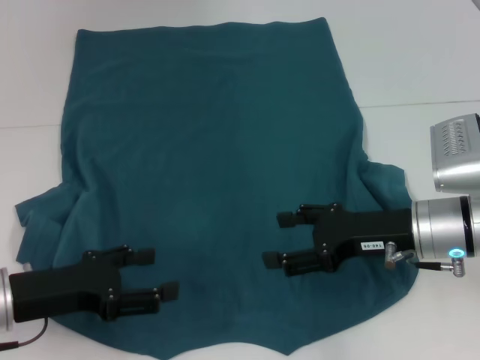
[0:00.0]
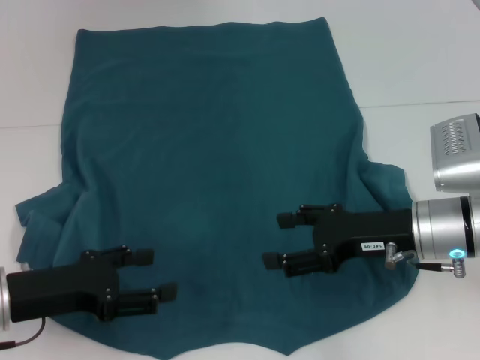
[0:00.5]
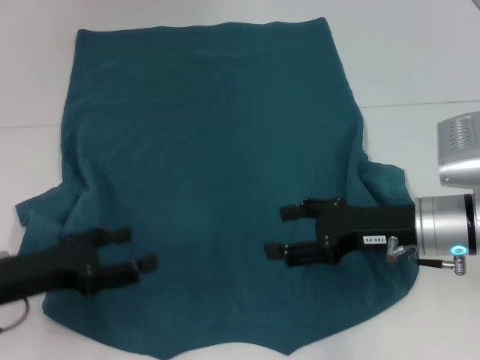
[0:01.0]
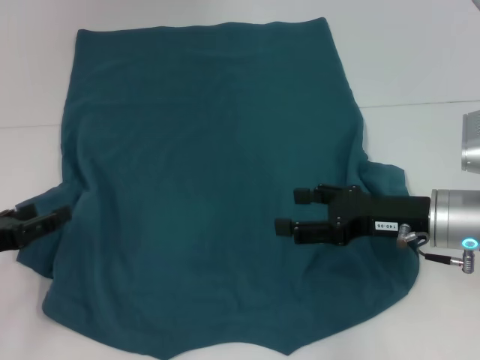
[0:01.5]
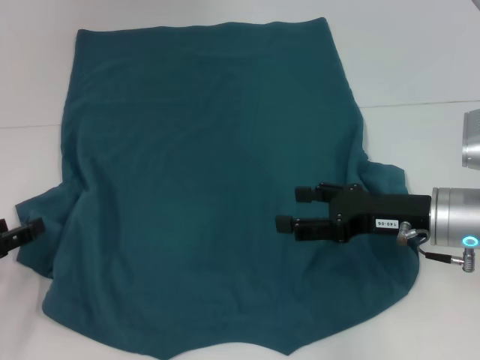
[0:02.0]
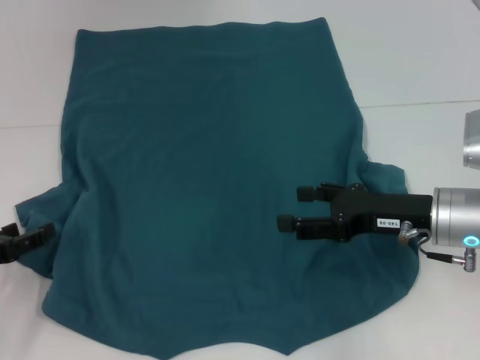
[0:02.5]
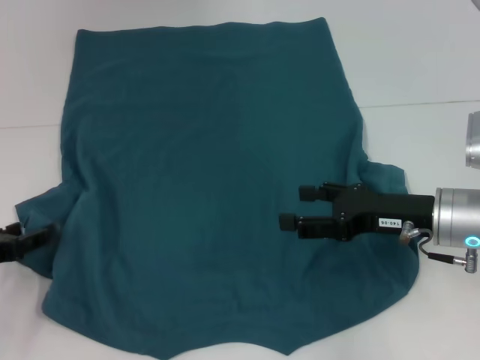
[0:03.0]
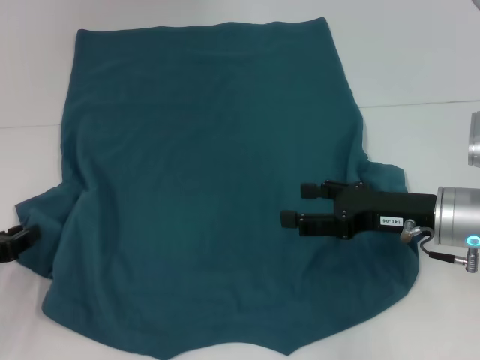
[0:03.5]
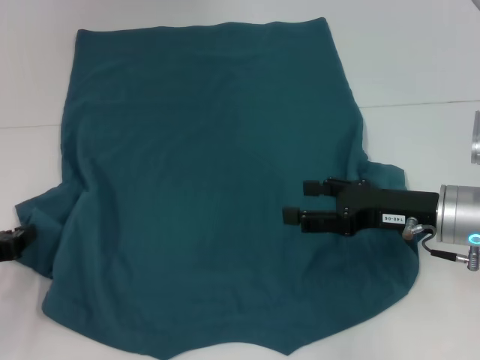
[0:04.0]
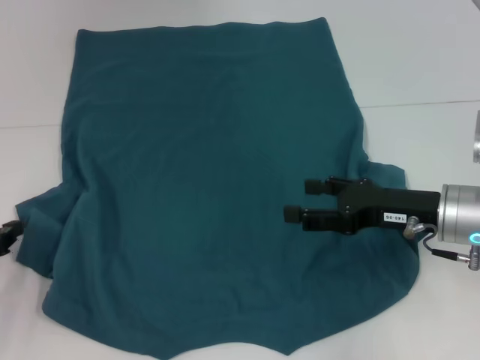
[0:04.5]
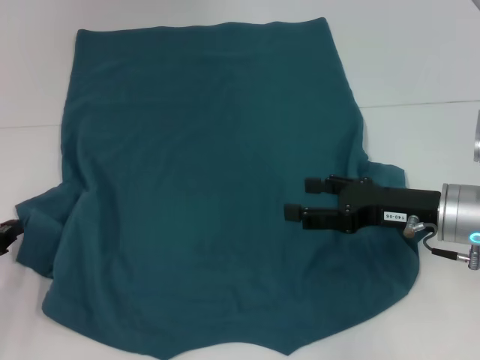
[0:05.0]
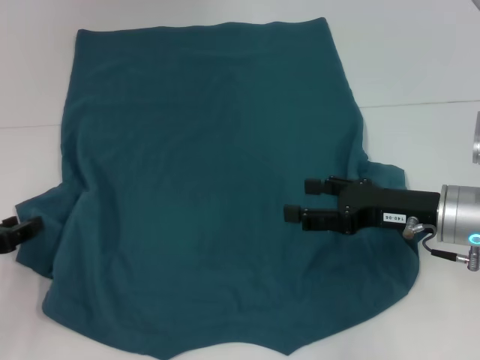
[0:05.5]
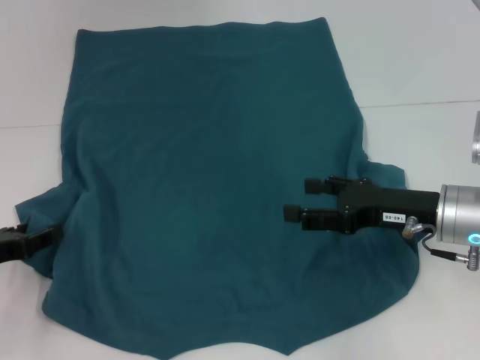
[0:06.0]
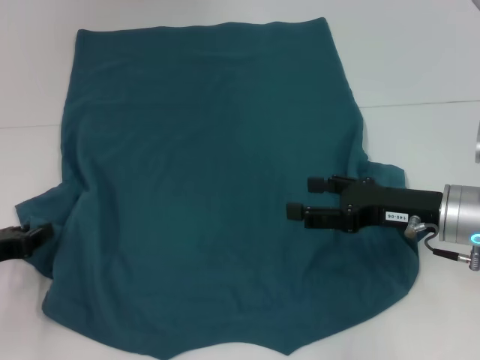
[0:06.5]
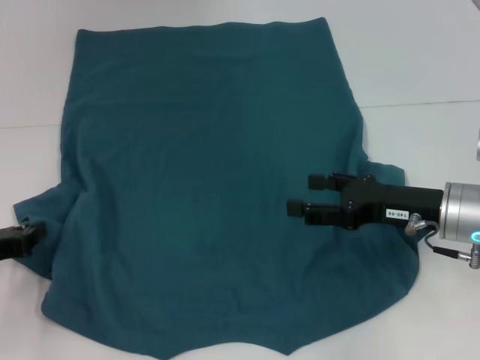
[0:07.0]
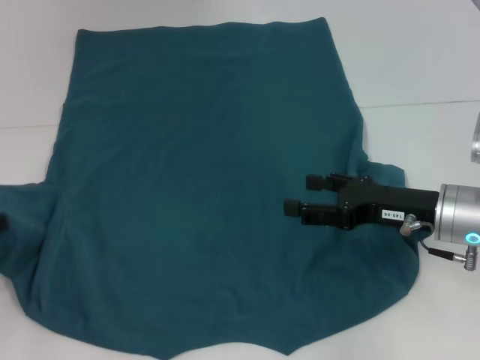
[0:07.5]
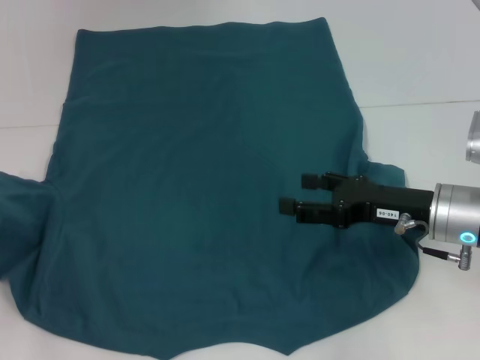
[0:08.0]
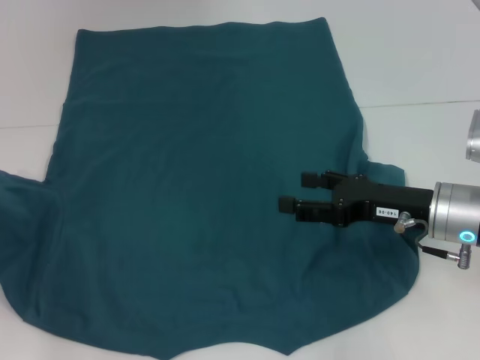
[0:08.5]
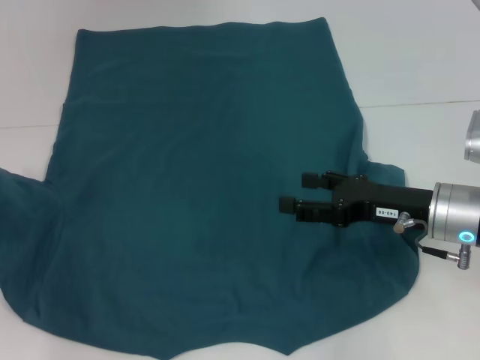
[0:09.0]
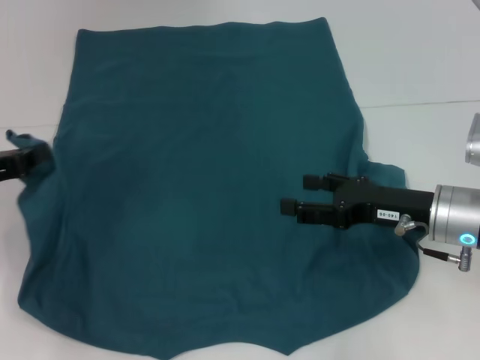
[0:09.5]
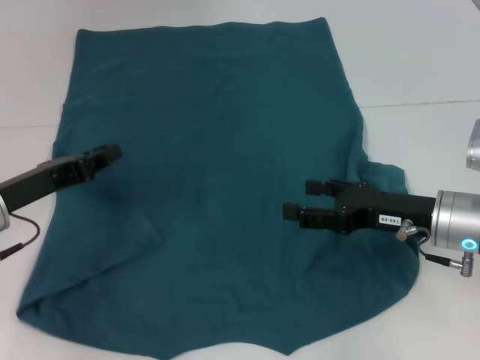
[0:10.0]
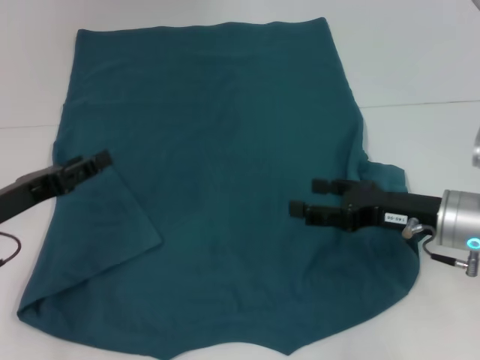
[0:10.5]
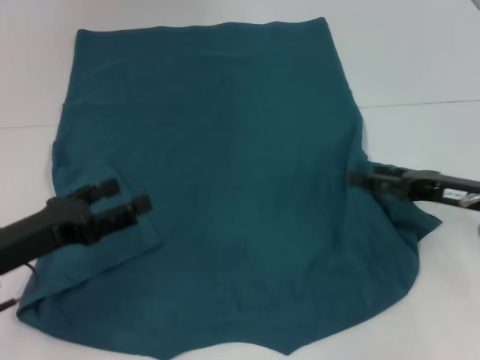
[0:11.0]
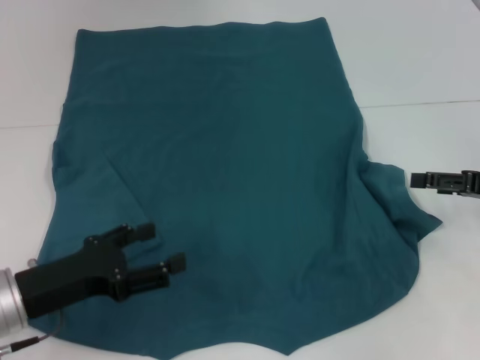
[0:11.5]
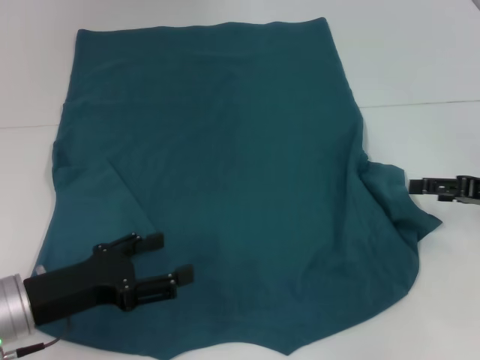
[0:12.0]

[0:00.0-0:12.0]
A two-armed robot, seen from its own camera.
Step, 0:00.0 to 0:10.5: Fold the bottom left sleeve with your left hand.
0:00.0 to 0:02.0: The left gripper is displaced to the left by approximately 10 cm.
0:02.0 to 0:04.0: The left gripper closes up.
0:06.0 to 0:08.0: The left gripper shifts by roughly 5 cm, and closes its fingers.
0:08.0 to 0:10.0: The left gripper shifts about 10 cm to the right.
0:10.0 to 0:12.0: The right gripper heads to the right, covering some 10 cm. Meanwhile the left gripper shifts approximately 5 cm backward, and opens its fingers.

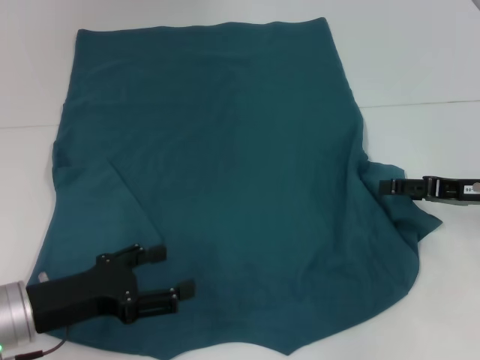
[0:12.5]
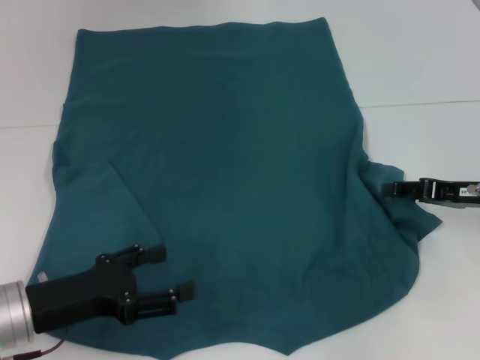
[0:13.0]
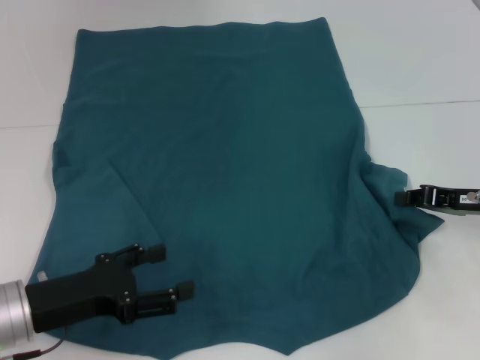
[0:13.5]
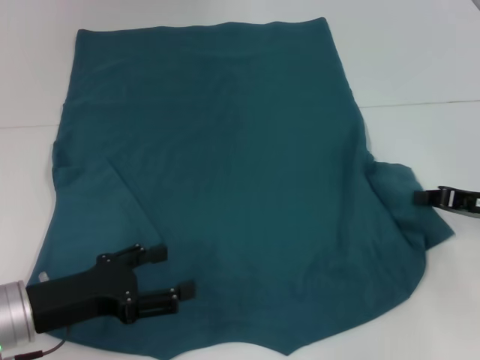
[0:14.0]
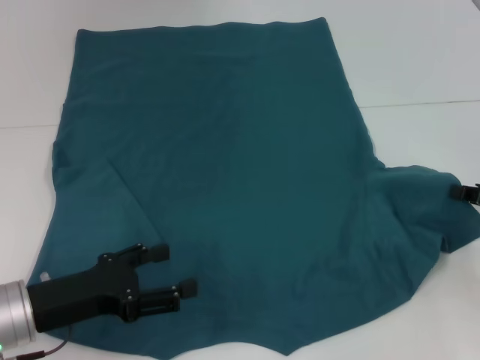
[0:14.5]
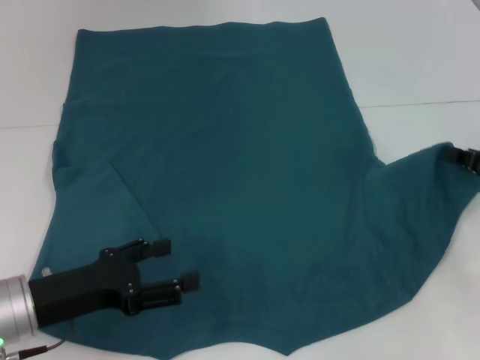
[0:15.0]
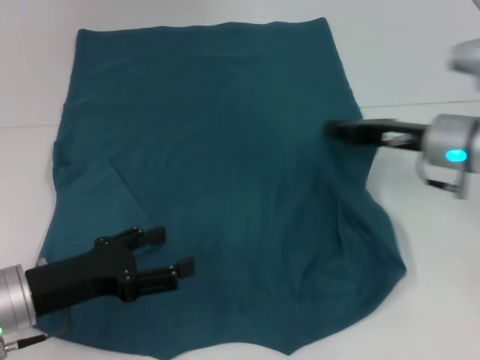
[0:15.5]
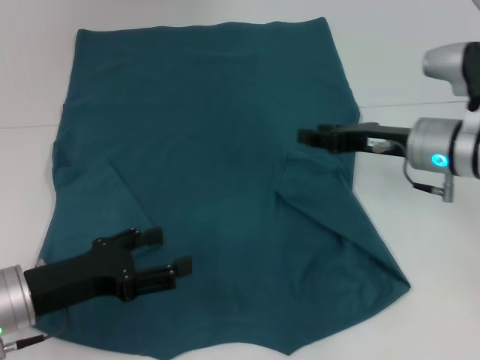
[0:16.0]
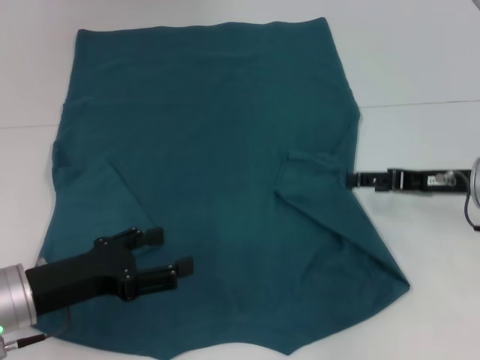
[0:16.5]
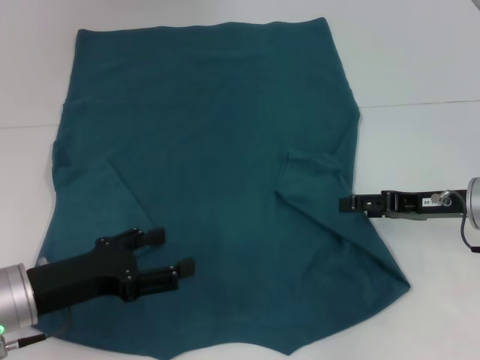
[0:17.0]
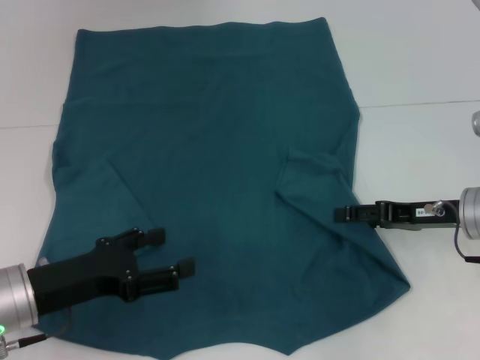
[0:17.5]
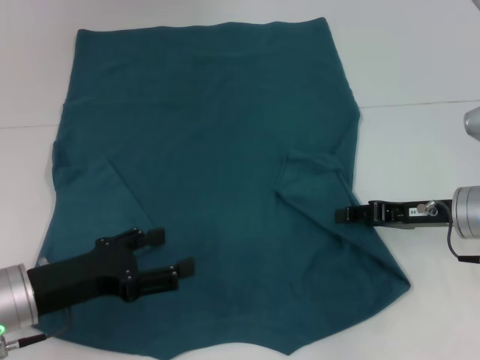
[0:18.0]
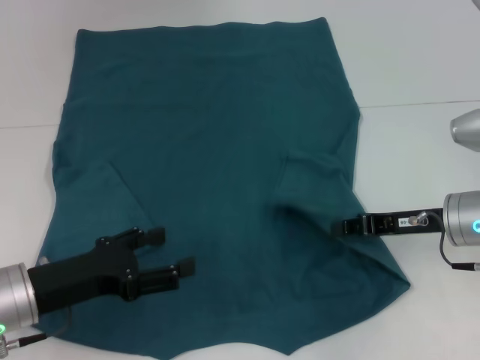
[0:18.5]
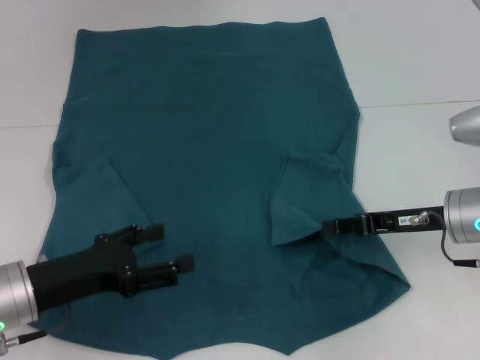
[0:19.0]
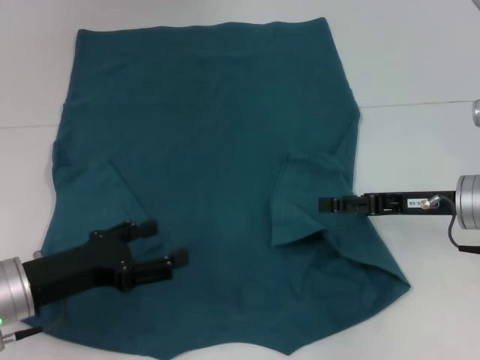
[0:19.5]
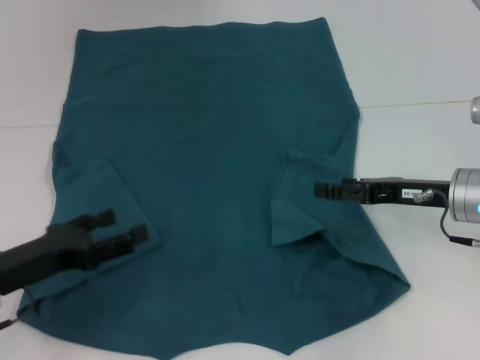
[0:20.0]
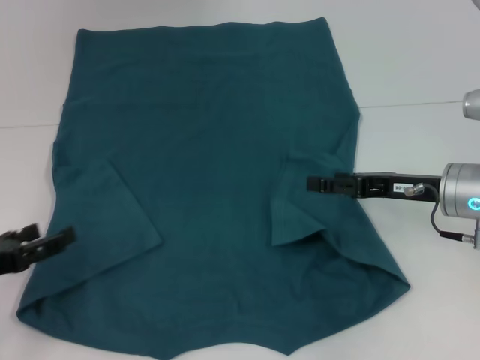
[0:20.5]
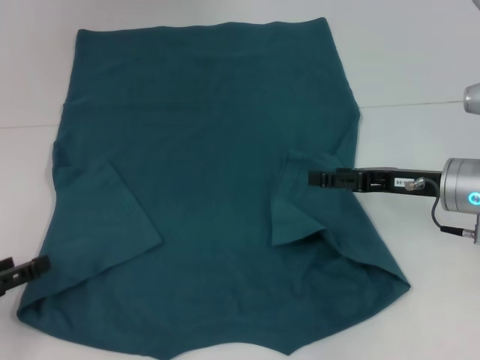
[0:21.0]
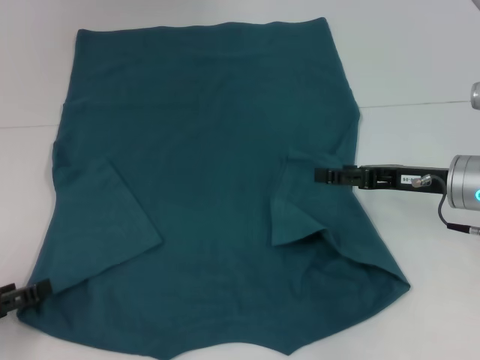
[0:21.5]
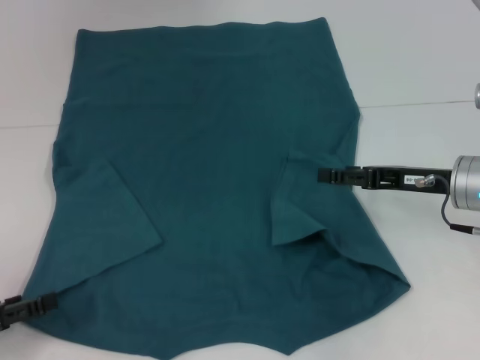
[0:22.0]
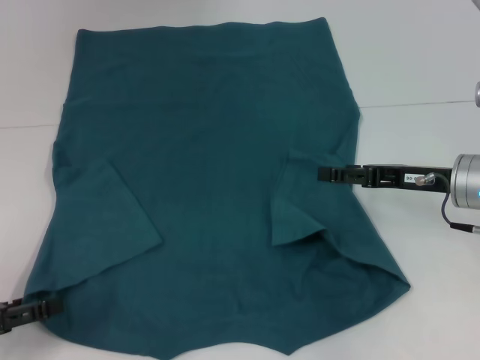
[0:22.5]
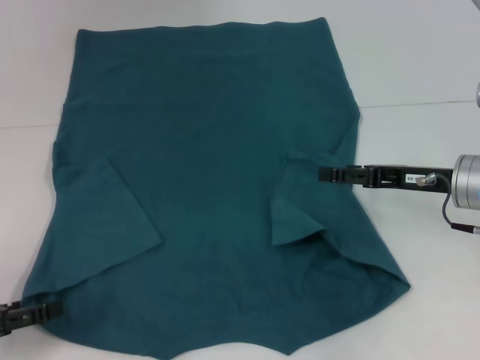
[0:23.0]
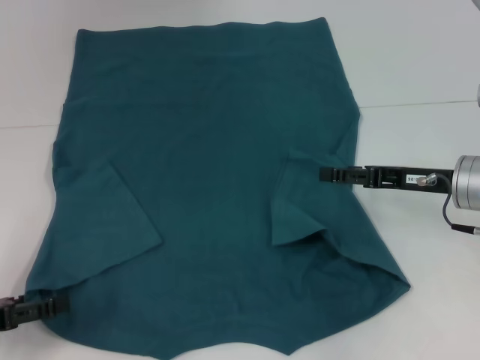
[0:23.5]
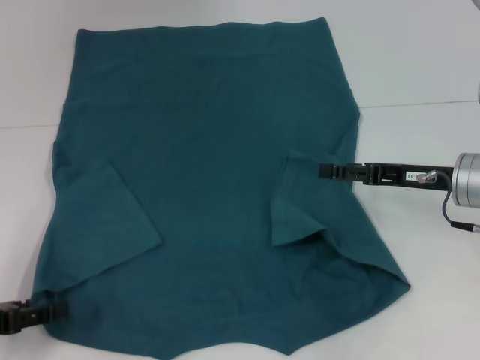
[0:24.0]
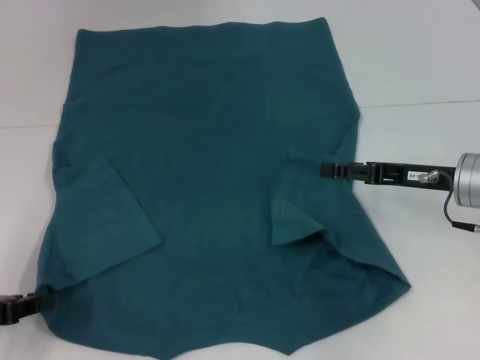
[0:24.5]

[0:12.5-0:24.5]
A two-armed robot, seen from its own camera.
Step, 0:12.5 to 0:19.0: Fold the bottom right sleeve to the right.
0:12.5 to 0:14.5: The right gripper ends up about 5 cm from where it was, and closes its fingers.
0:14.5 to 0:16.5: The right gripper travels to the left by some 10 cm, and opens its fingers.
0:16.5 to 0:18.5: The right gripper closes up.
0:18.5 to 0:20.5: The right gripper opens up, while the left gripper heads to the left, covering roughly 10 cm.
0:20.5 to 0:22.5: The grippers stay close to where they were, moving slightly.
0:22.5 to 0:24.5: The left gripper closes its fingers.

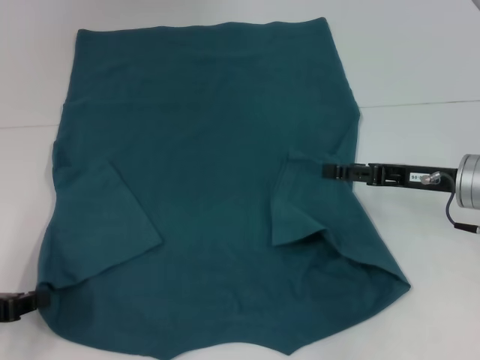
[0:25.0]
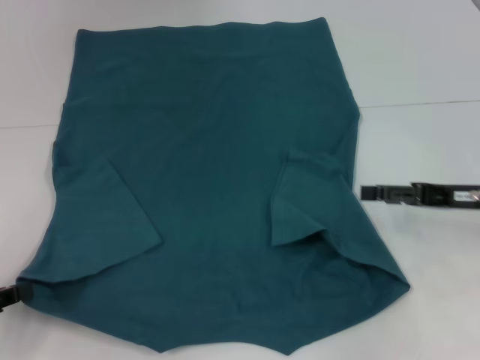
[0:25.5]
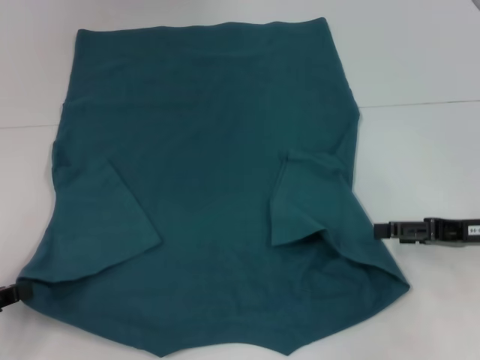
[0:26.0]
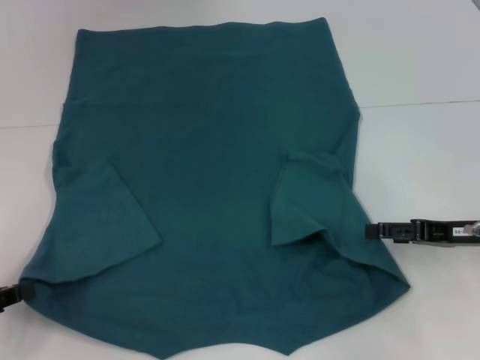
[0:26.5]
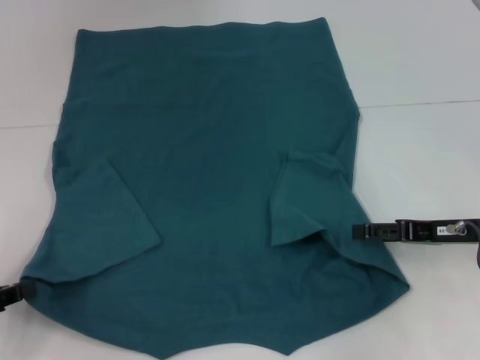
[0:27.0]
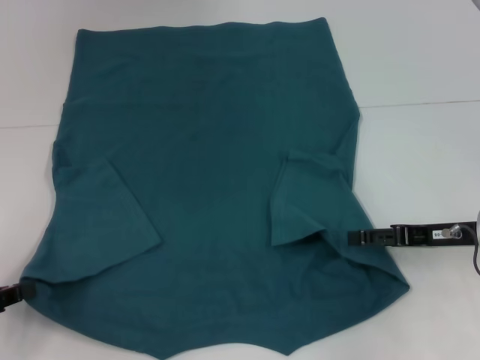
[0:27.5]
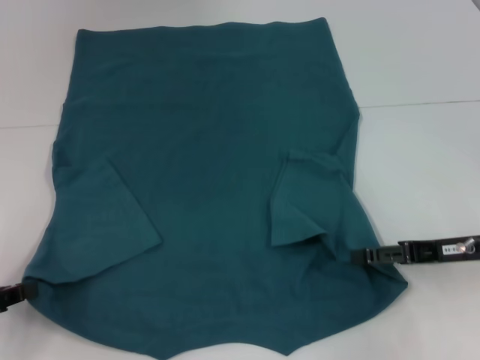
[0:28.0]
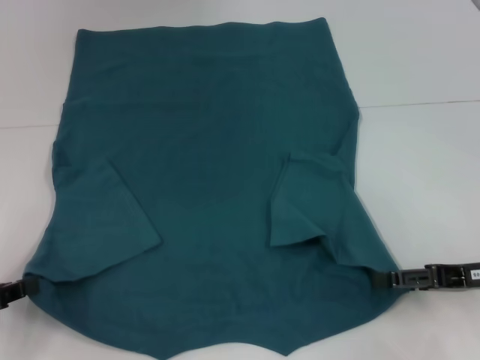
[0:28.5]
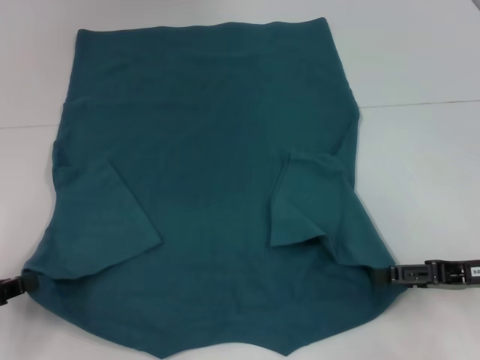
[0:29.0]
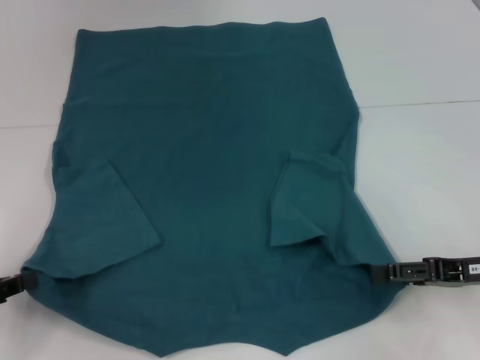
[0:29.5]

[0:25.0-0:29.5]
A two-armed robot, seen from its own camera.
0:25.0 to 0:27.0: The right gripper shifts by about 5 cm.
0:27.0 to 0:29.5: The grippers make only small movements.
